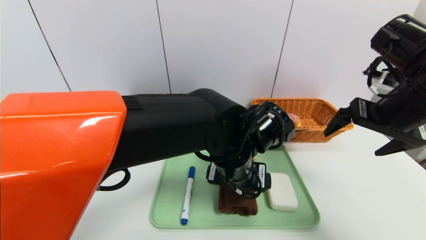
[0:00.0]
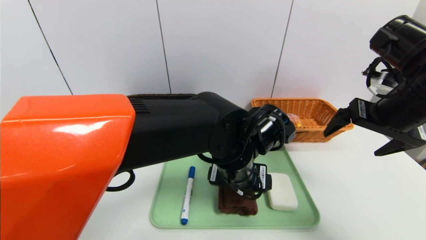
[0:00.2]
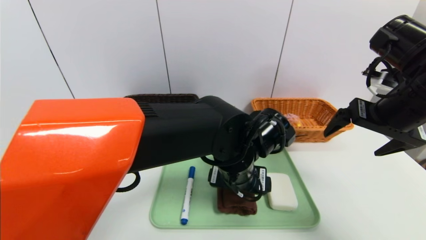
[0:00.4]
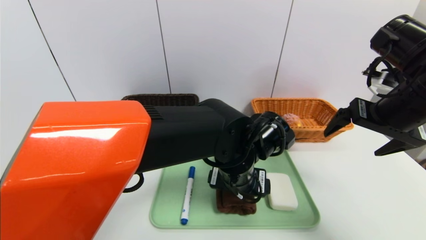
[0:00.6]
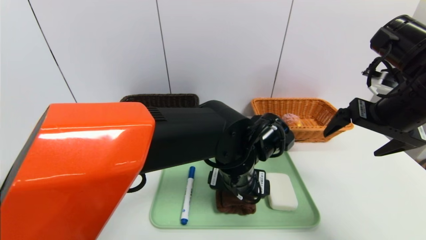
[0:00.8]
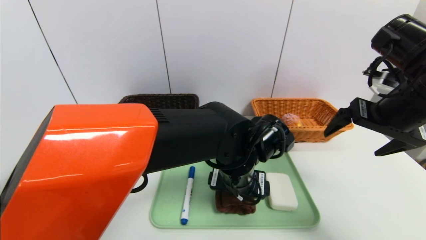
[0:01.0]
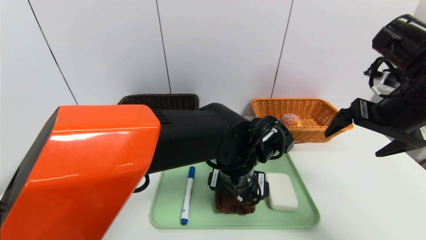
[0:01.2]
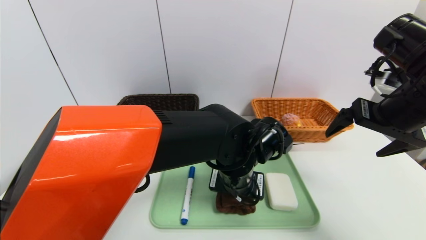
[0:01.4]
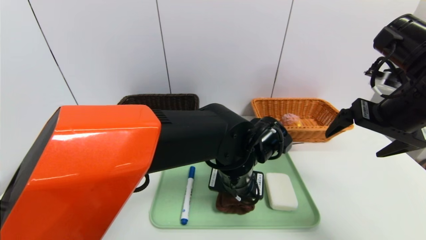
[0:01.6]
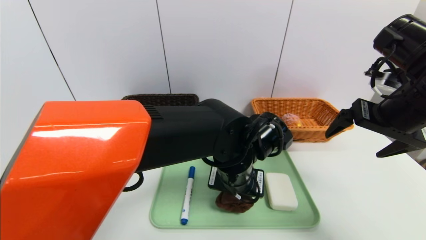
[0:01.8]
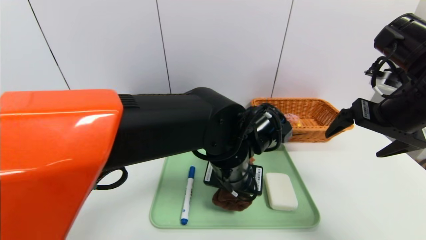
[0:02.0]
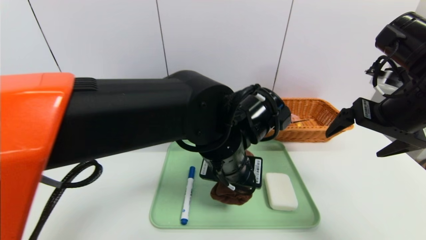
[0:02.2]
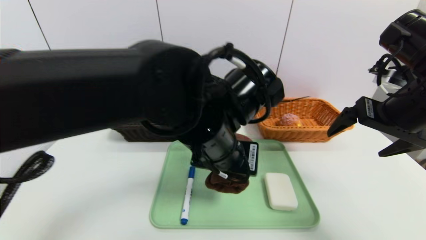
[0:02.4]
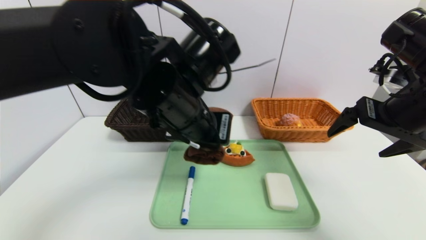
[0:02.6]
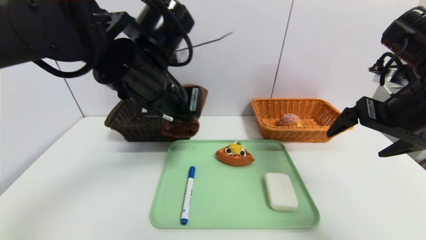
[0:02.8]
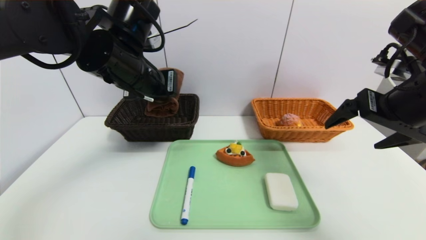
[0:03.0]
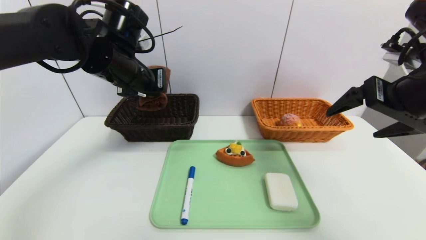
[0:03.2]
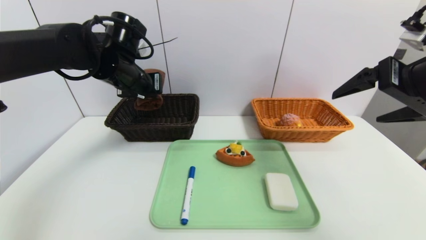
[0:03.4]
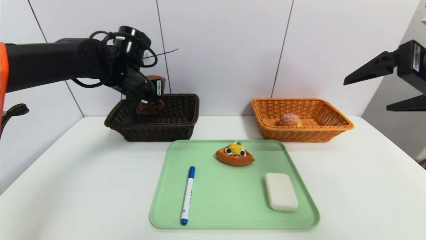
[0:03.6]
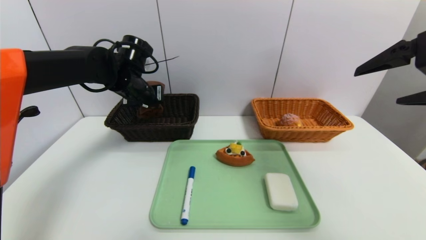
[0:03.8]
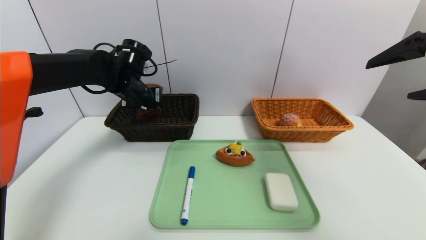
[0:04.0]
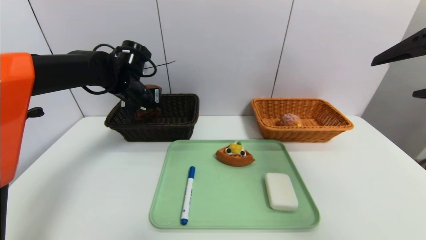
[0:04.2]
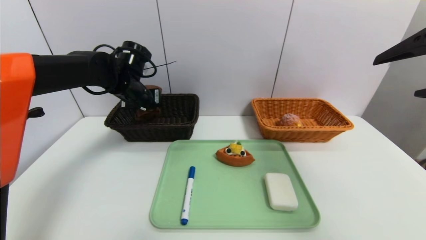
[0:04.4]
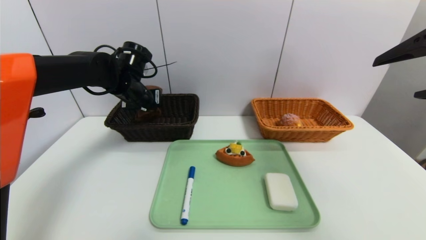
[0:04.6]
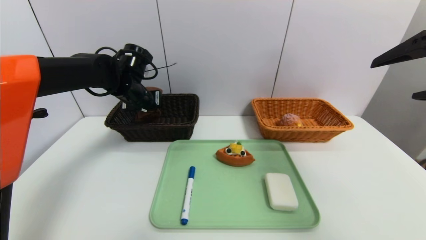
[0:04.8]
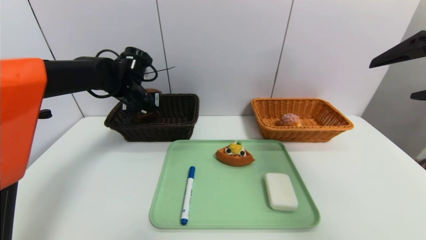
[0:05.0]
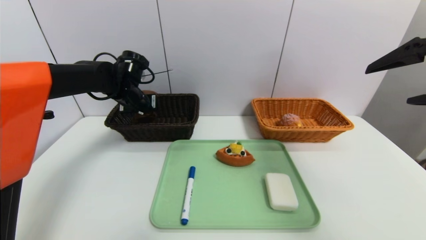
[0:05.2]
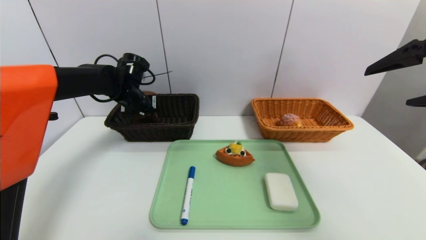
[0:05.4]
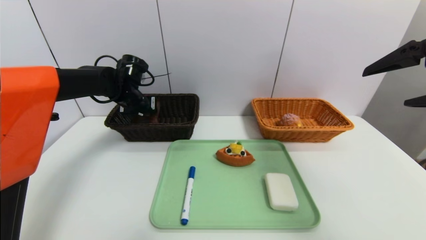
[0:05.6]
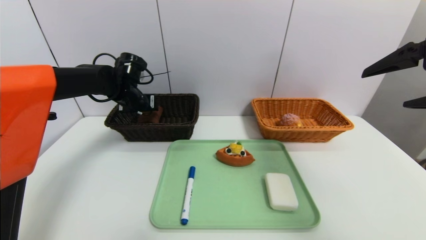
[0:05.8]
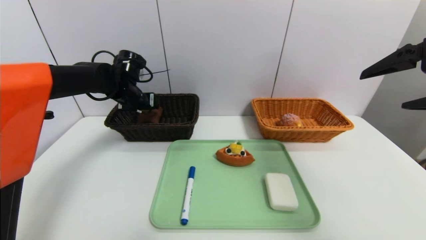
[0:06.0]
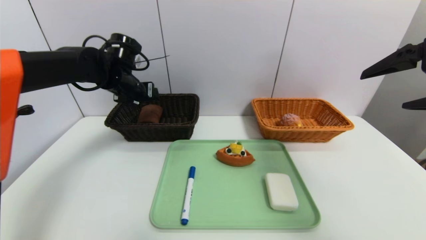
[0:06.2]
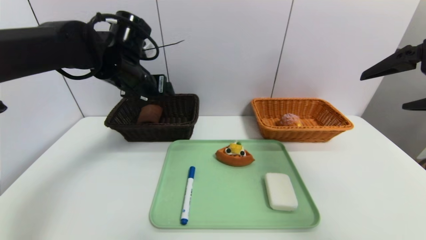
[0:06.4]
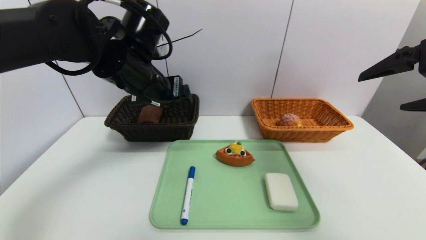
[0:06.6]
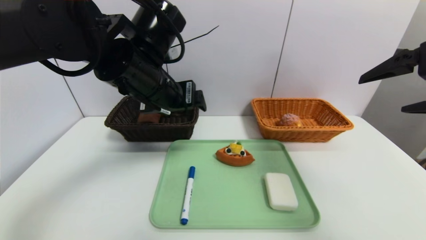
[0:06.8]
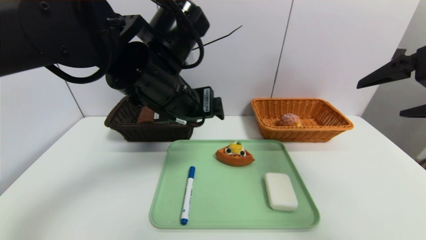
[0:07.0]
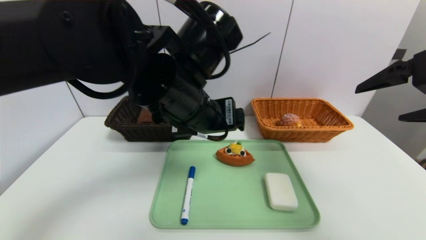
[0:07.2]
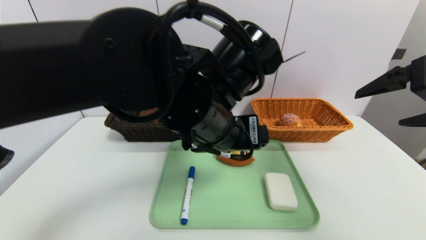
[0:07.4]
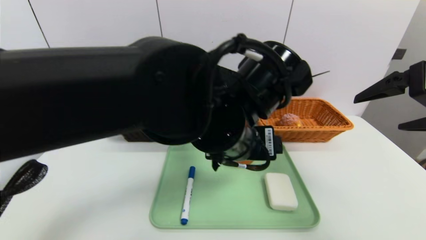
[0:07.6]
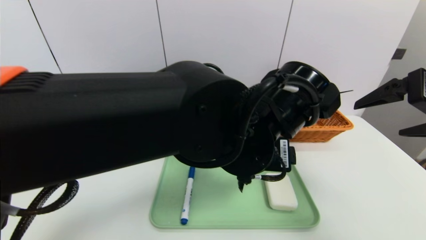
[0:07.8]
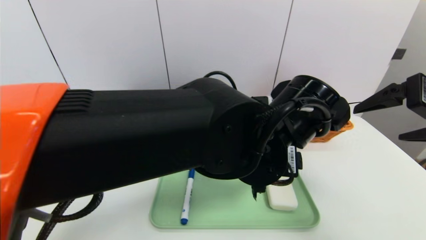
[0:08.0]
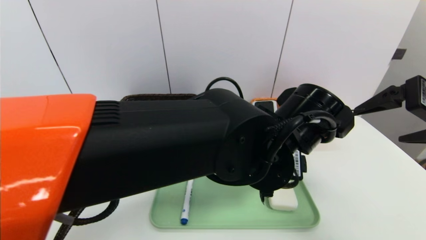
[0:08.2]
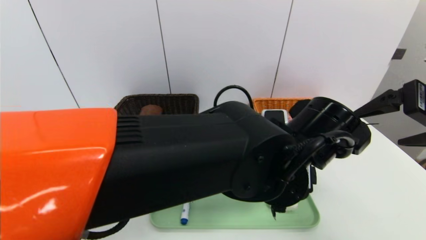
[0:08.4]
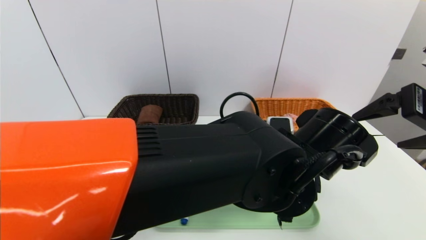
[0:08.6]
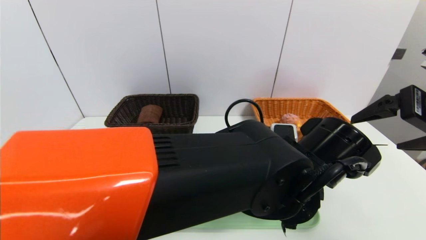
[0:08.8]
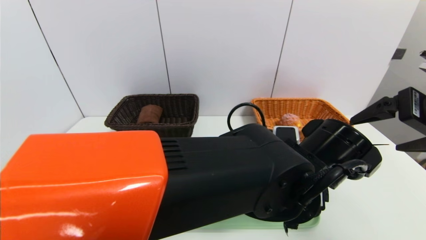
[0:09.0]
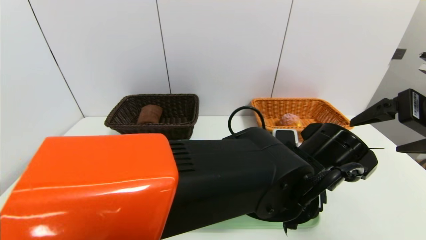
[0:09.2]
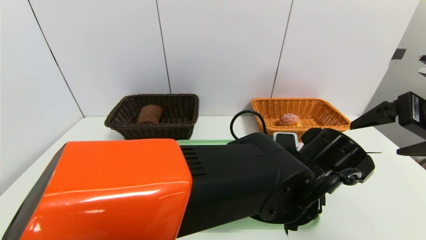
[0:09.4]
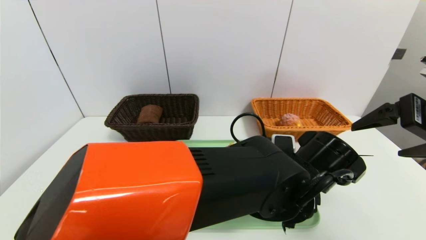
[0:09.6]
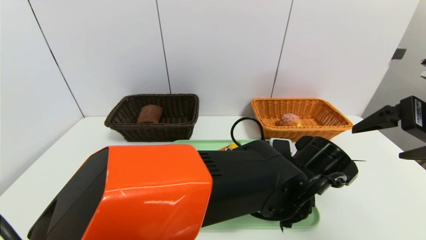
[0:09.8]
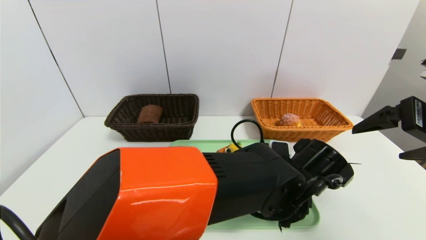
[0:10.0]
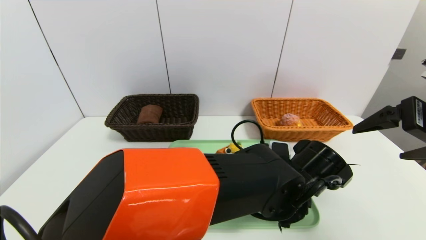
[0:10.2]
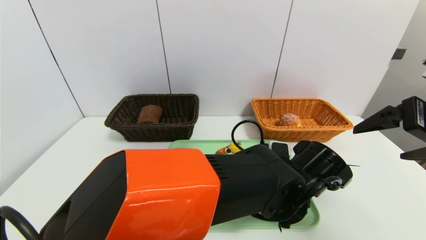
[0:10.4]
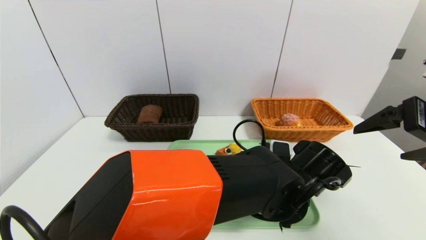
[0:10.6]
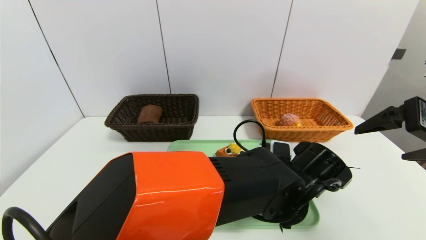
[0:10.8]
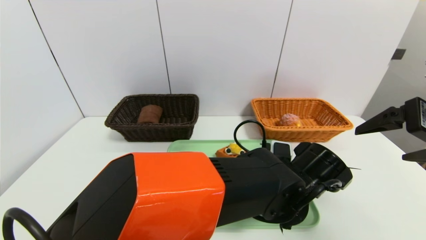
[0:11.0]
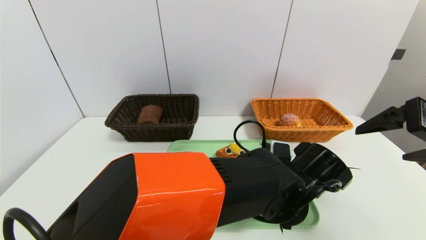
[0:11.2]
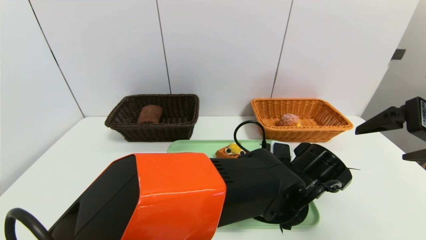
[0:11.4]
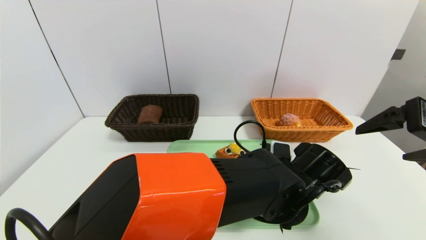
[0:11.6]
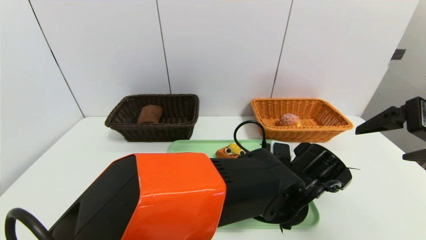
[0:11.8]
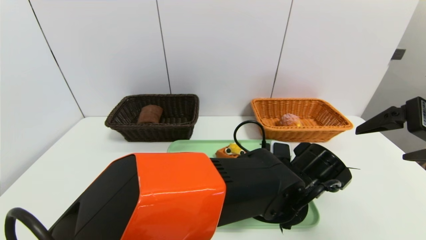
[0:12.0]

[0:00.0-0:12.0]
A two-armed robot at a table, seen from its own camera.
Task of the whole recording: place the food in the right basket with the right gripper, and place the non food items in the left basket with the left gripper.
Step, 0:00.0 to 0:06.0: Grasp the brown towel and put it in the left basket.
0:00.0 to 0:01.6: The left gripper closes up.
0:01.6 to 0:03.0: The left gripper goes about 25 cm to the left and upward.
0:03.0 to 0:04.4: The left gripper heads forward, downward and to the left, covering some 15 cm. The right gripper goes approximately 10 cm upward and backward.
0:04.4 to 0:06.0: The left gripper opens its fingers.
0:06.0 to 0:07.6: The left gripper is displaced to the right and backward by about 35 cm.
0:07.6 to 0:09.0: The left gripper moves to the right and downward, approximately 10 cm.
0:09.0 to 0:10.4: The left gripper travels downward by approximately 5 cm.
0:10.4 to 0:12.0: The left gripper closes up.

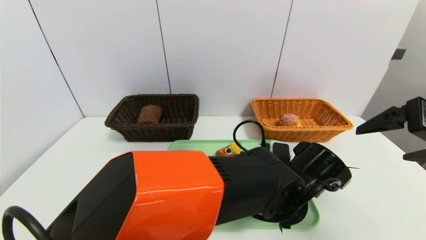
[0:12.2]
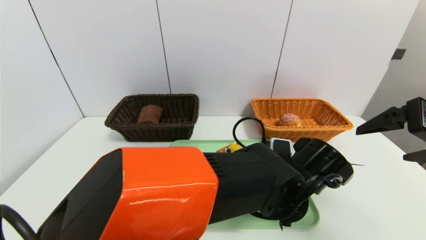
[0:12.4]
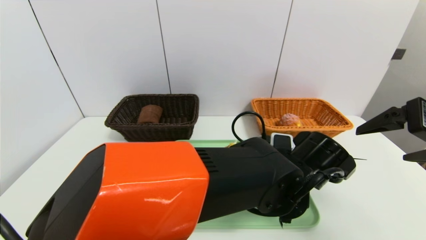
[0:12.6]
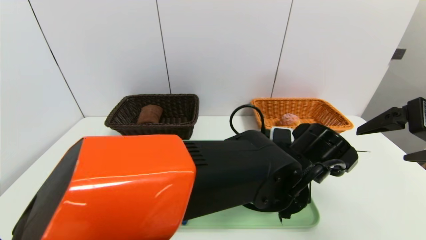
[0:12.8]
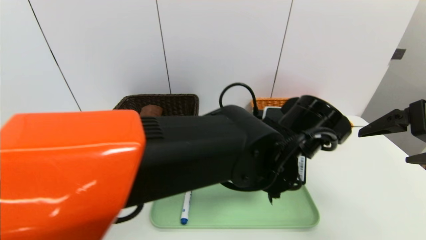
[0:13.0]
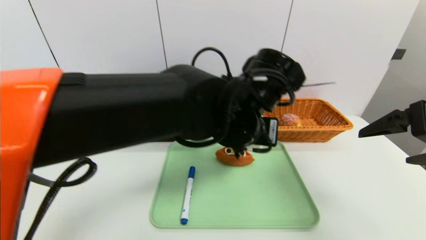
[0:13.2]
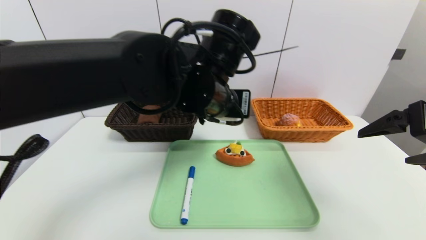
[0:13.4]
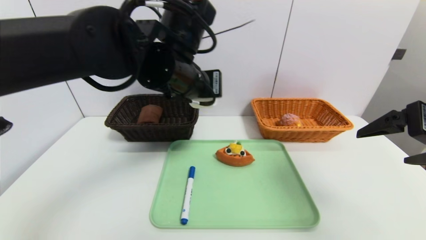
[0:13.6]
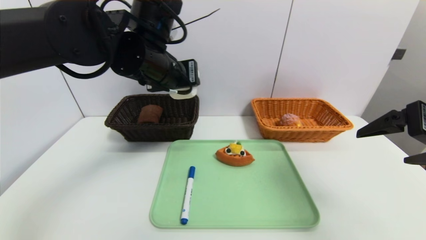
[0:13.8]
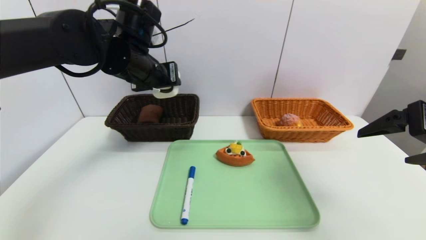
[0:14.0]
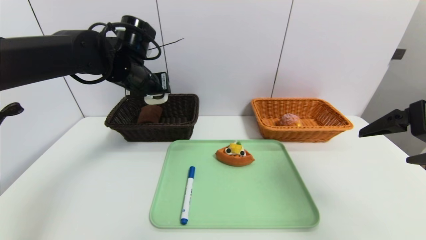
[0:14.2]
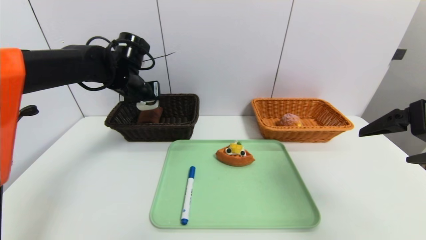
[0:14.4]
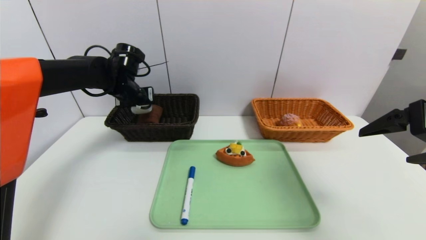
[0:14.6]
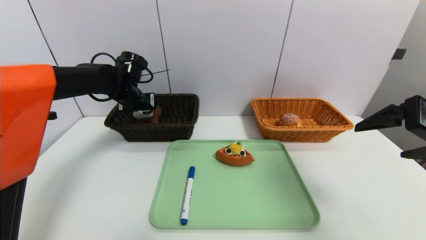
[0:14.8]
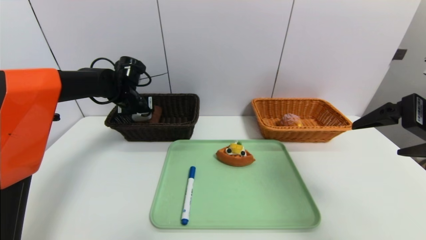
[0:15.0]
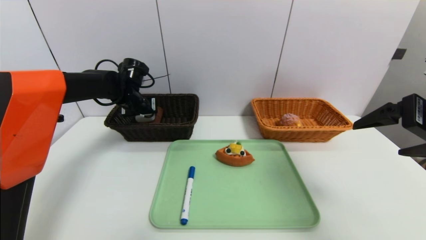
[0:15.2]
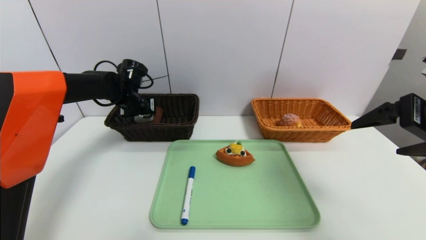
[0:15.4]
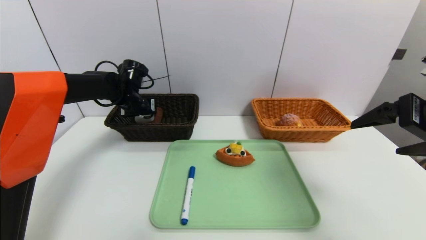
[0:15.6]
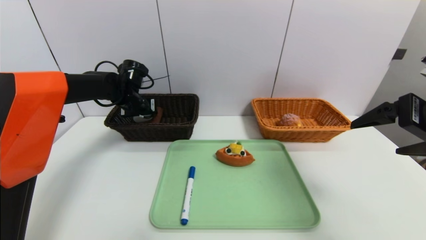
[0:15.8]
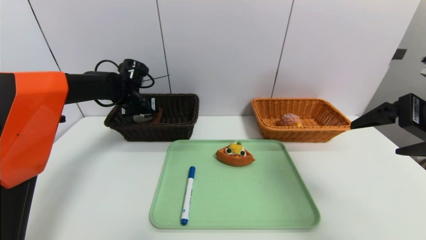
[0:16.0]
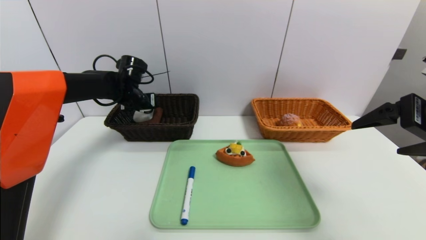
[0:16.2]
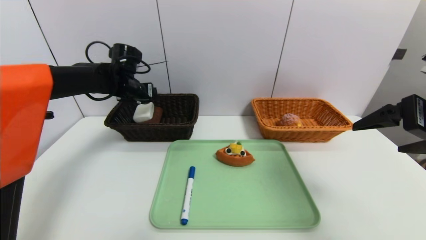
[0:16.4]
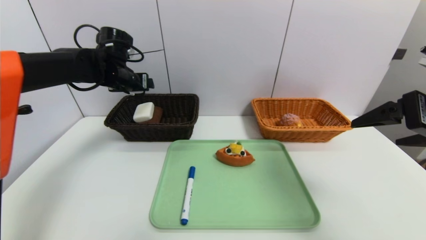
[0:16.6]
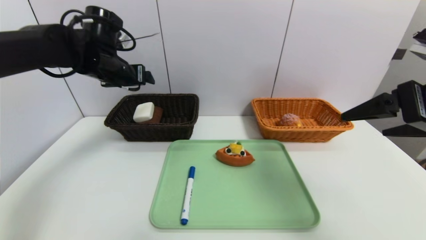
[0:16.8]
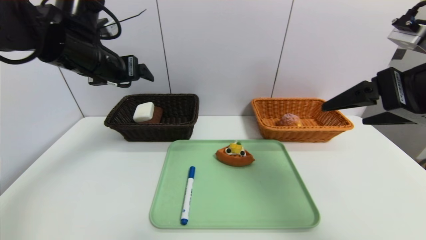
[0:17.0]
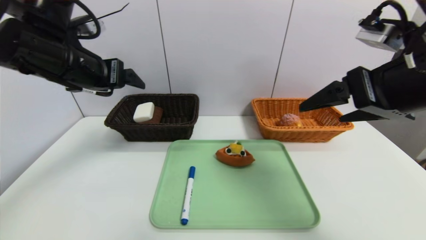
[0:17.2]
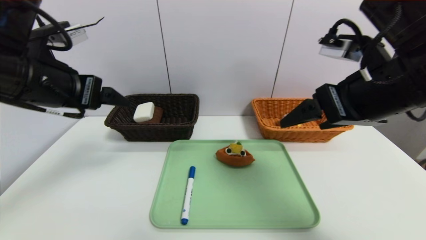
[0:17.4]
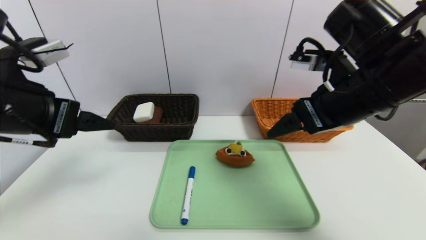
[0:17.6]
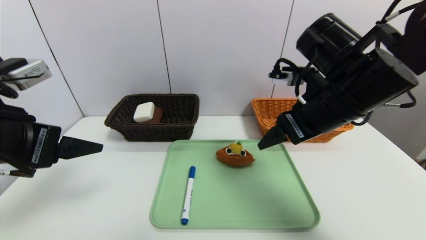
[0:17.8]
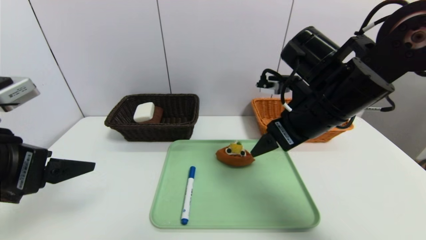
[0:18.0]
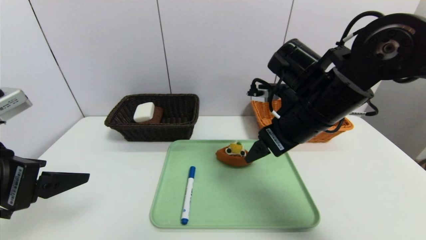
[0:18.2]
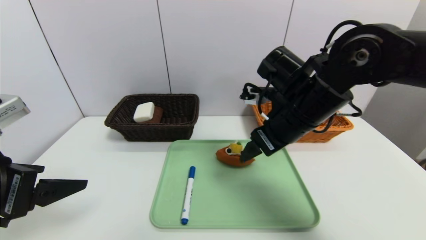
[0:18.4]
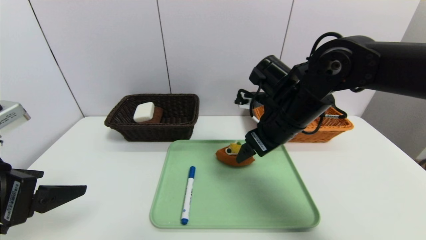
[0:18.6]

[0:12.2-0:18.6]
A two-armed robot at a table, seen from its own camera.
Task of the whole recording: place the food in the right basket with the right gripper, and place the non food items in the left basket with the left gripper.
Step, 0:12.2 to 0:16.4: Grasp the soap and put it in the left basket.
0:12.2 to 0:13.8: The left gripper travels to the left, upward and forward by about 30 cm.
0:13.8 to 0:15.4: The left gripper heads forward, downward and to the left, covering about 25 cm.
0:15.4 to 0:17.0: The right gripper moves some 5 cm, while the left gripper is displaced upward and backward by roughly 20 cm, and opens.
0:17.0 to 0:18.6: The left gripper shifts about 20 cm backward. The right gripper shifts roughly 20 cm to the left, forward and downward.
